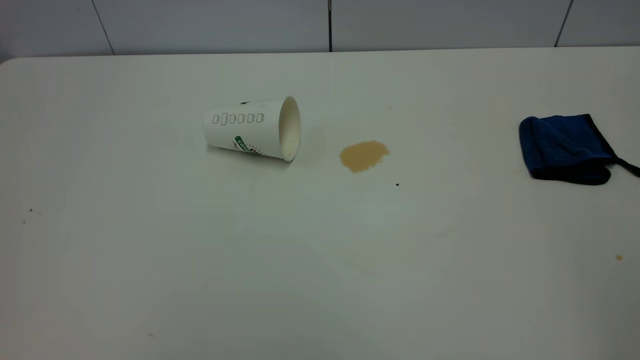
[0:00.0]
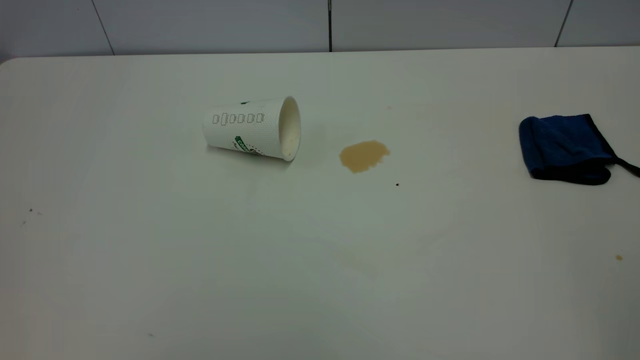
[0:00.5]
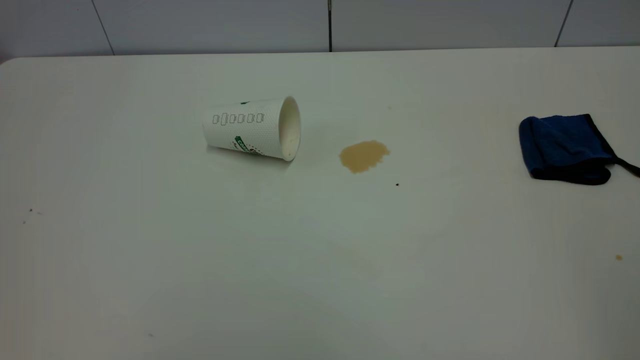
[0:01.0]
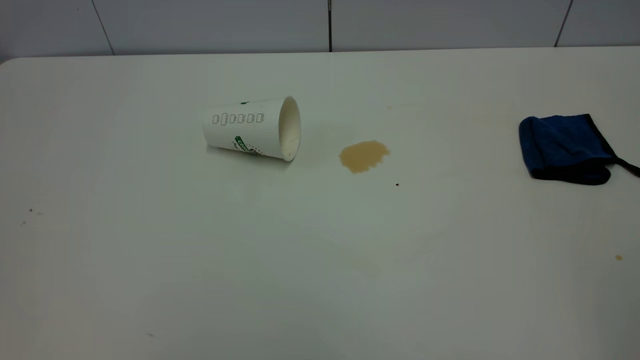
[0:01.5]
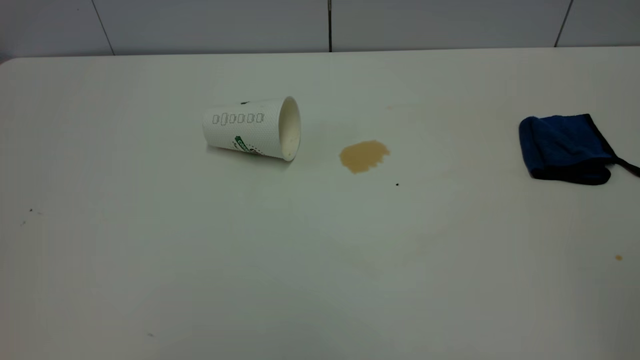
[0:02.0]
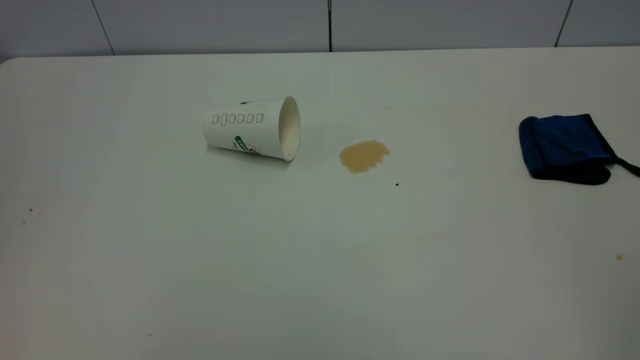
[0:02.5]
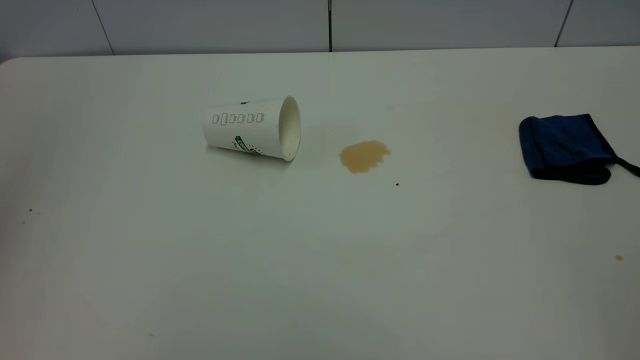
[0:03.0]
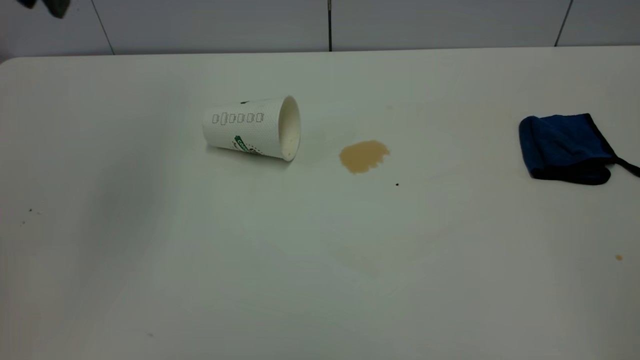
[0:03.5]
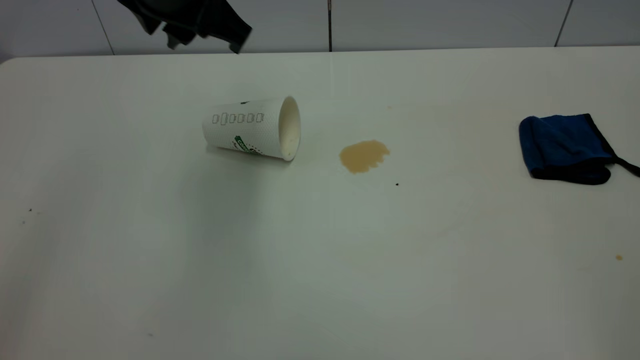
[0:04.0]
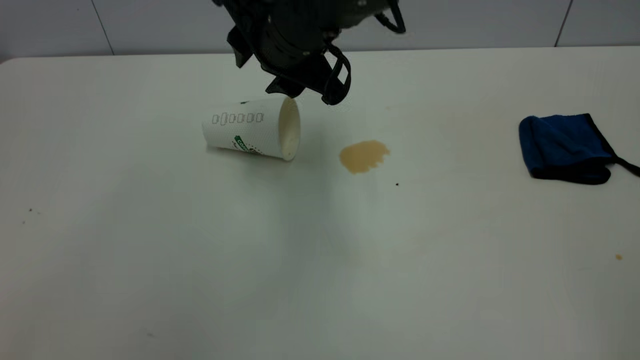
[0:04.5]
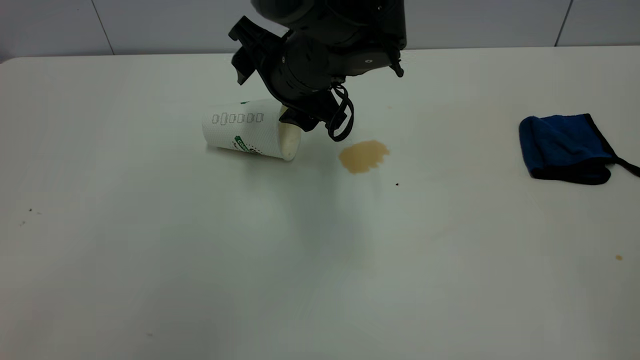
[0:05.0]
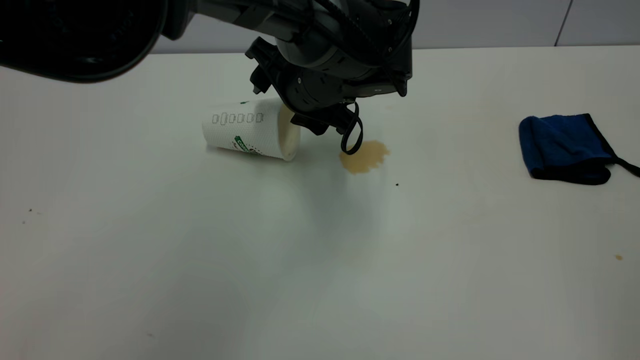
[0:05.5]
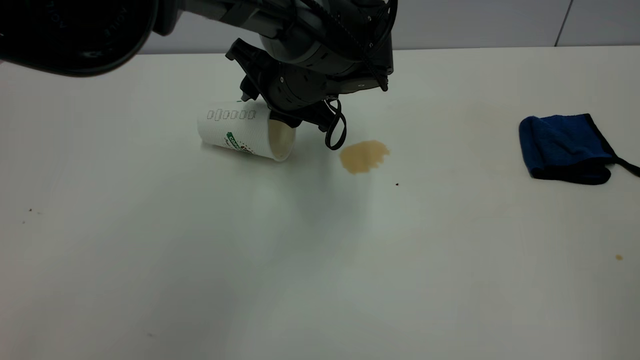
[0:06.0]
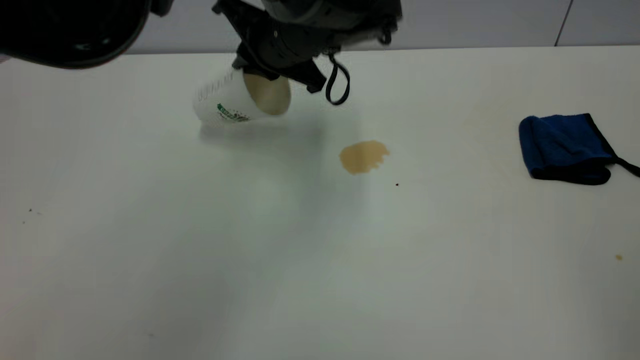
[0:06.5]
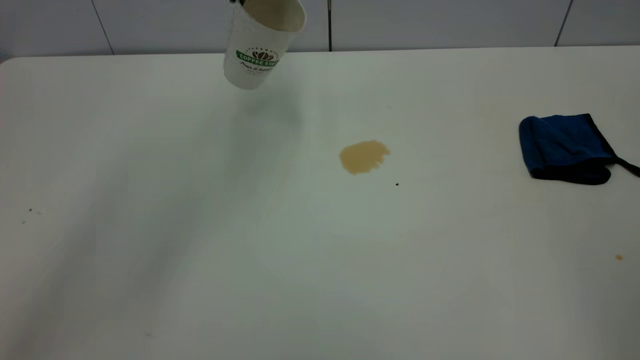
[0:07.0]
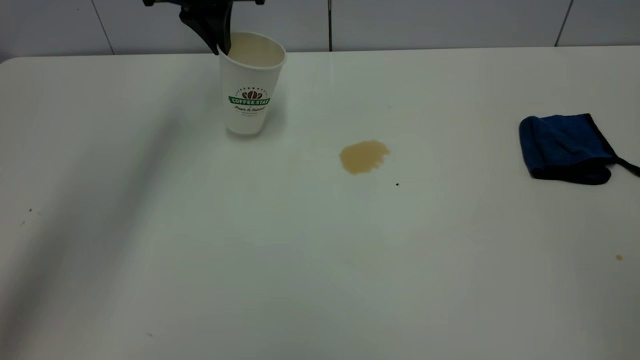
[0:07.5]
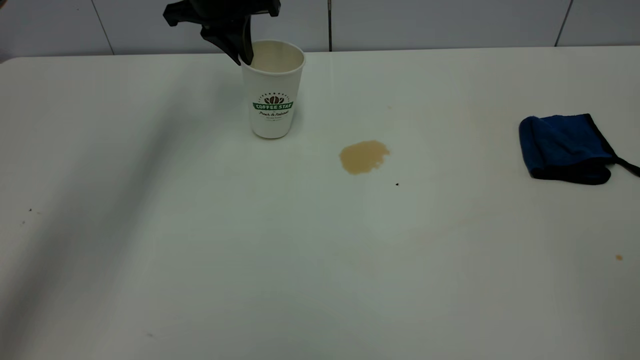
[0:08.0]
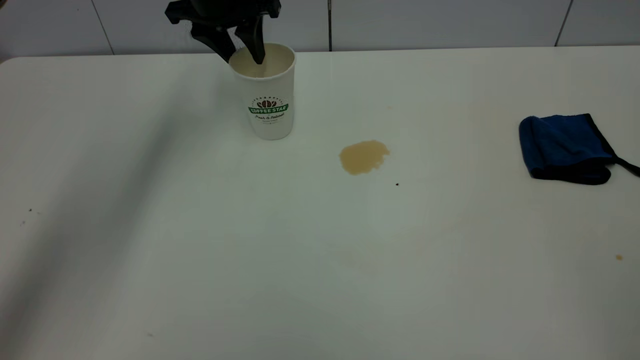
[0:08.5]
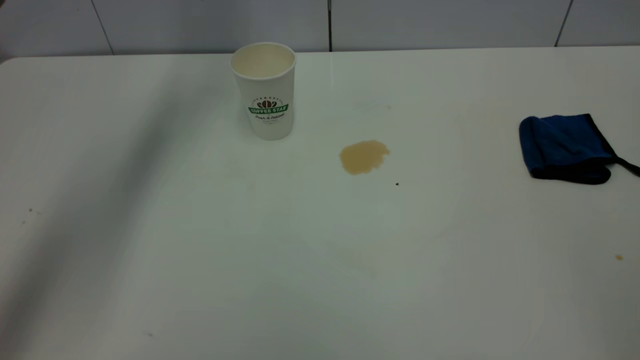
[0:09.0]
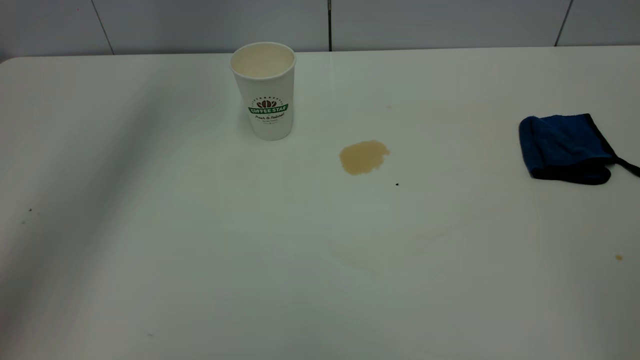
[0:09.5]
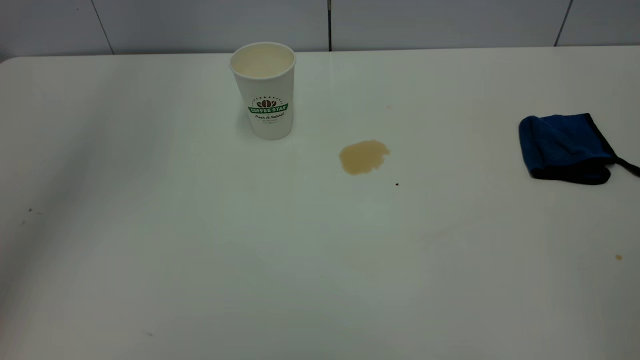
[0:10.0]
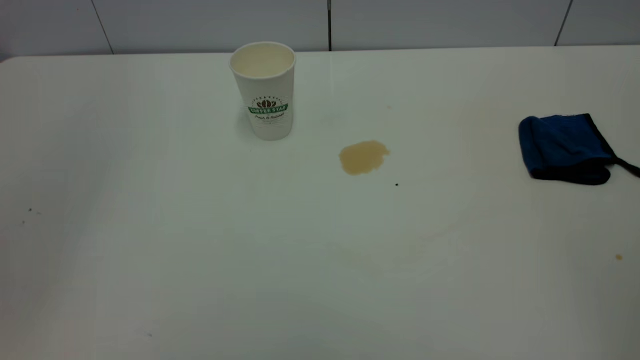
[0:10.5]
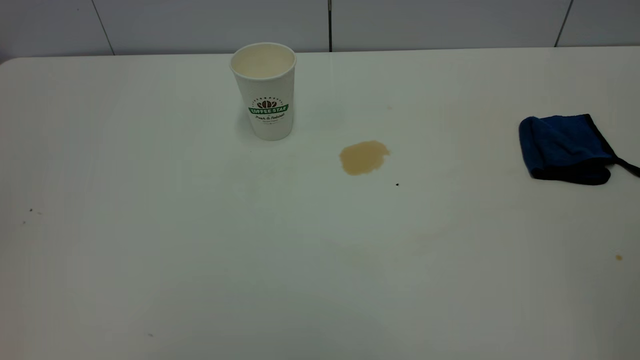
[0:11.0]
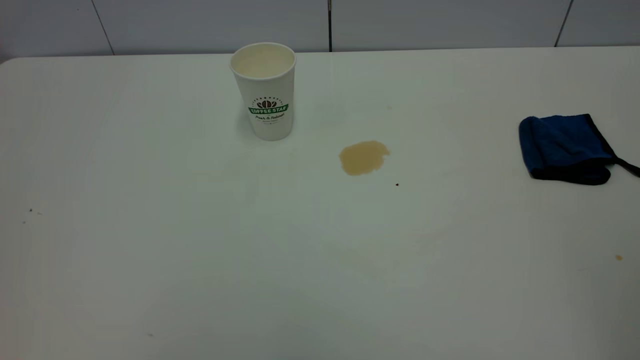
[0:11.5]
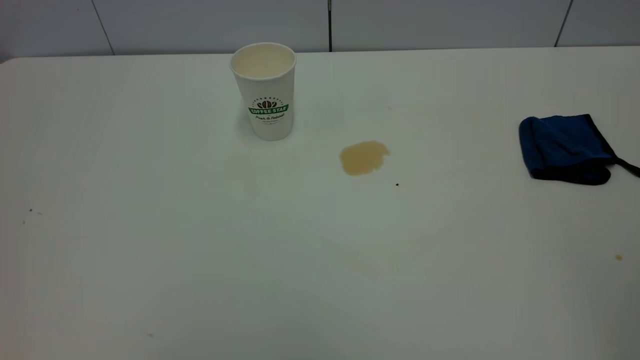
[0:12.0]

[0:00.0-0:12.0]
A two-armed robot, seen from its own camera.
Task of the whole recording: the left gripper pick up the fallen cup and place it upright, the right gripper grasp the blue rag and wipe the tea stain on the table, the right gripper put the blue rag back in its original position.
Step, 0:00.0 to 0:08.5: Stand the paper cup upright.
0:02.0 to 0:04.0: The left gripper travels forward and to the right by roughly 40 cm.
0:04.0 to 0:06.0: The left gripper shifts roughly 15 cm downward, to the right and forward, and opens and closes again.
0:06.0 to 0:08.0: The left gripper is displaced to the left, forward and upward by roughly 20 cm, and closes up.
0:08.0 to 0:10.0: The left gripper is displaced upward and backward by roughly 25 cm, and opens, then closes once more.
0:10.0 to 0:12.0: The left gripper travels backward by some 35 cm.

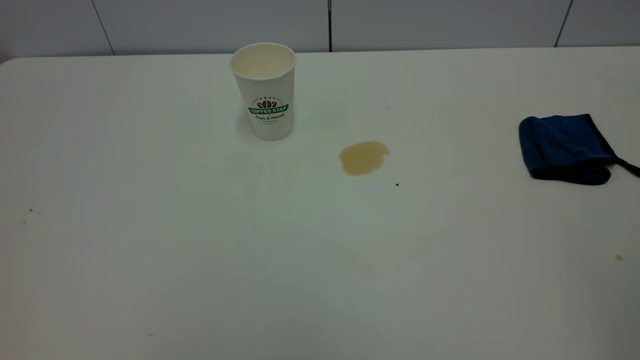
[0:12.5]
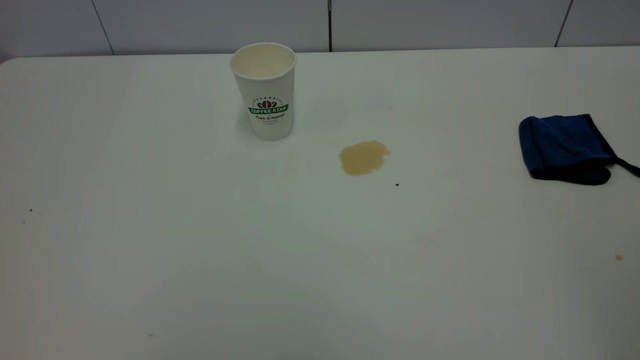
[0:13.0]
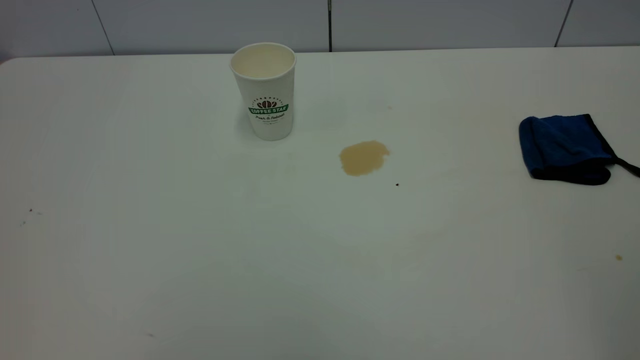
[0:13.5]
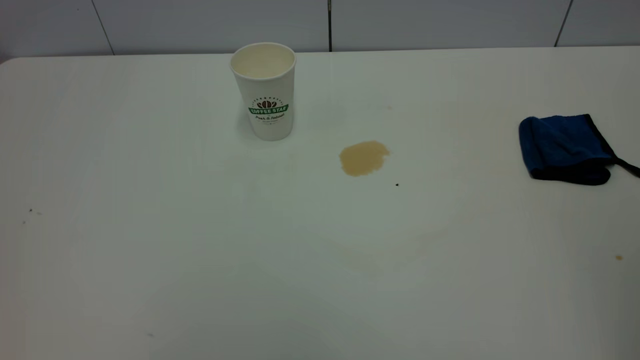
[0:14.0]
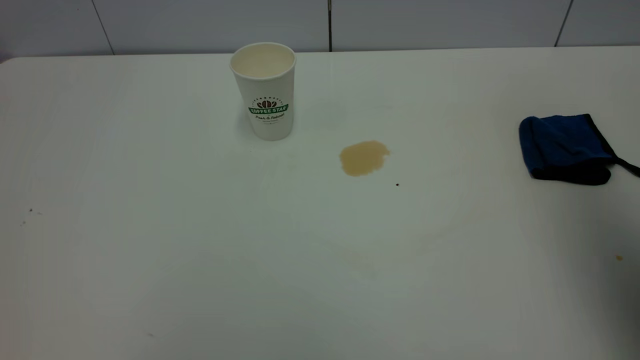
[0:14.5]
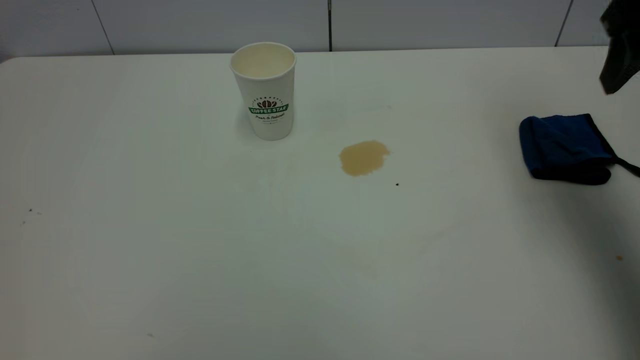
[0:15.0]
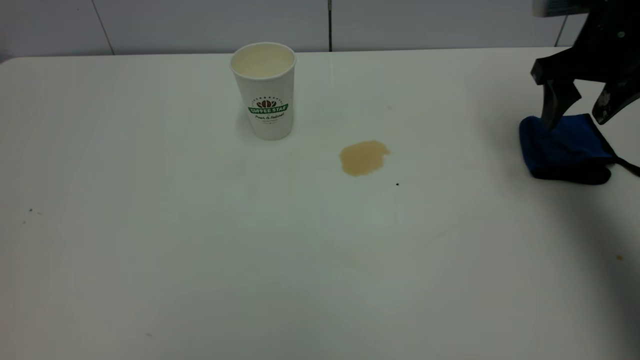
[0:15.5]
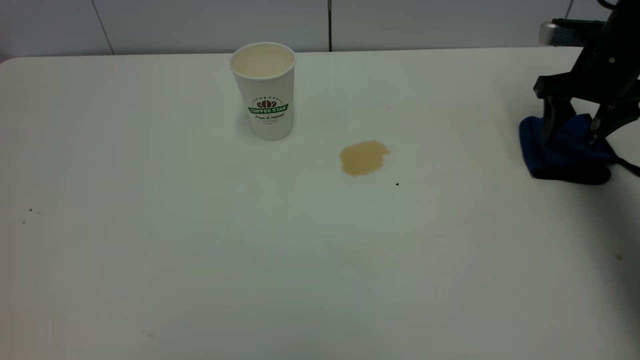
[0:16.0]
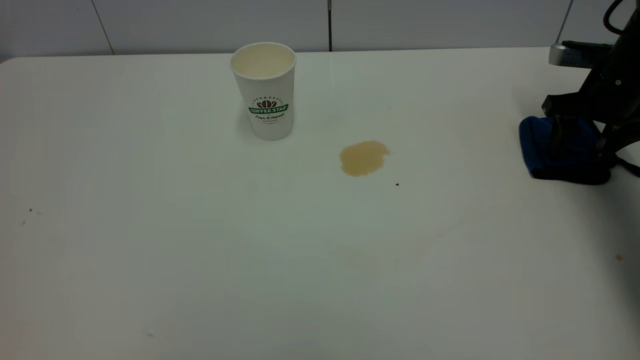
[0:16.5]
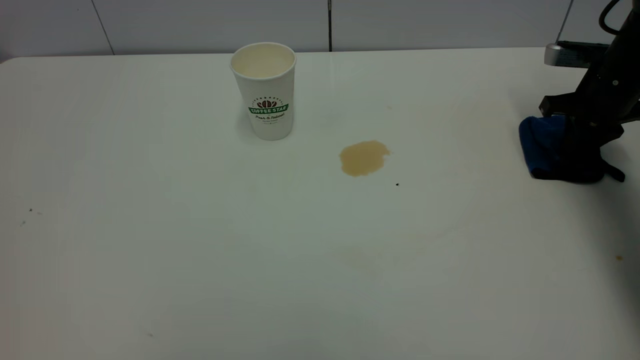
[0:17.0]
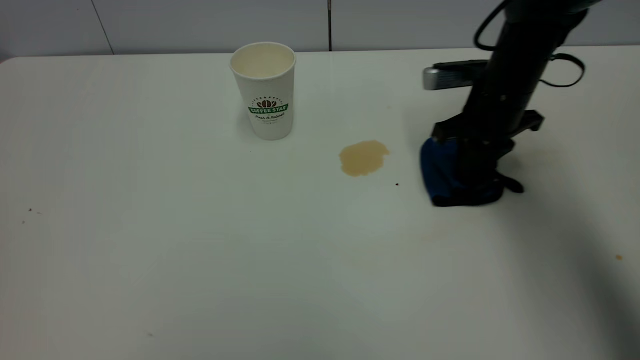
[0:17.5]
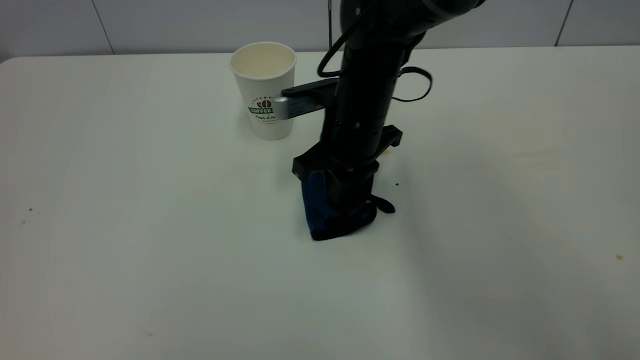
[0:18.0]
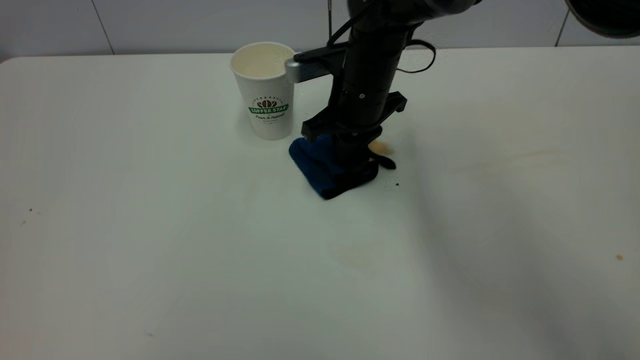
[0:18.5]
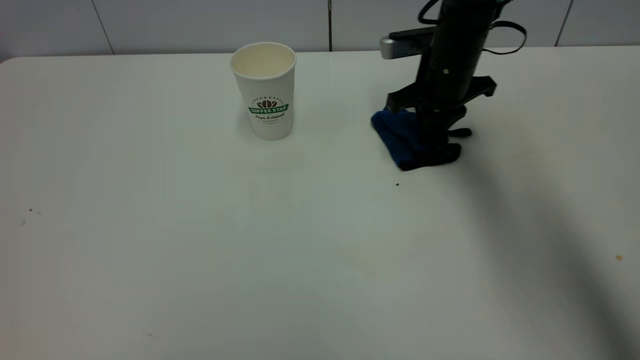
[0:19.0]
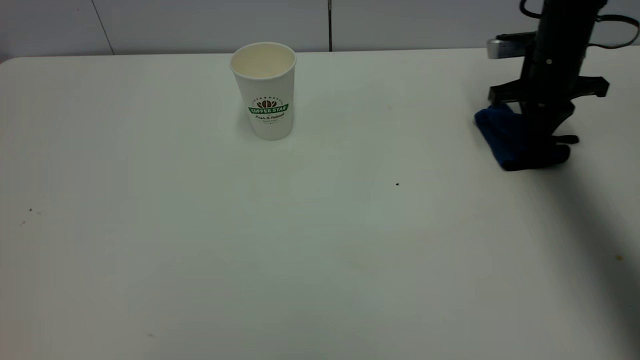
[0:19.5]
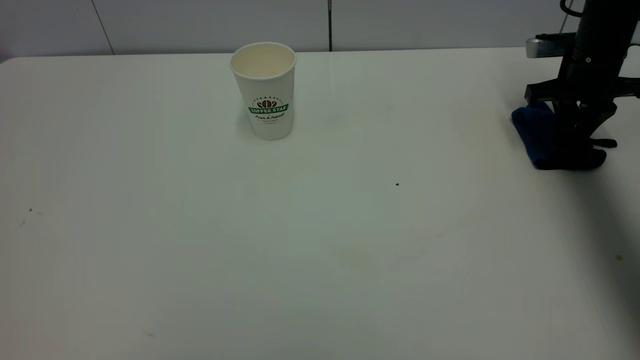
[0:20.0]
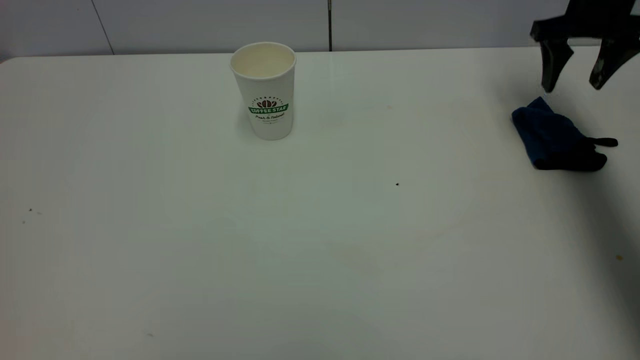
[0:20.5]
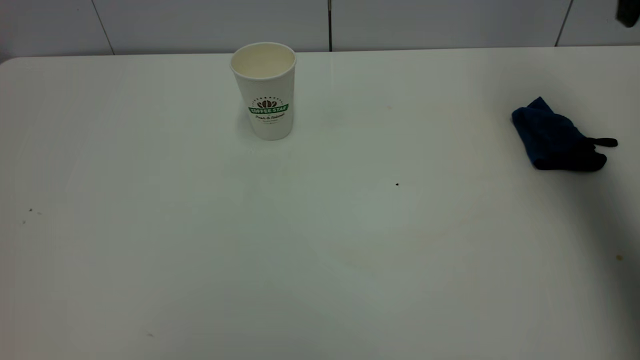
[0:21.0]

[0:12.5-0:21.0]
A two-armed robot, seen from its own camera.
Task of the whole recording: the left gripper pick up the fallen cup and place it upright, the right gripper grasp the blue rag and wipe the tea stain on the table, the right gripper put the blue rag back in its original position.
Step, 0:12.5 to 0:20.5: Wipe the stains off the table with a rag.
0:12.5 to 0:14.5: The right gripper is displaced forward by some 25 cm.
0:14.5 to 0:16.5: The right gripper shifts approximately 40 cm downward and forward.
0:16.5 to 0:19.0: The right gripper heads to the left, covering some 20 cm, and closes up.
0:19.0 to 0:21.0: The right gripper shifts some 30 cm upward, to the right and backward, and opens.
